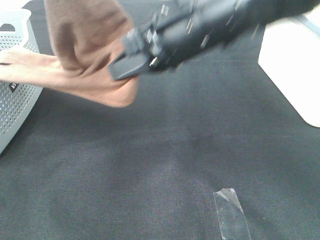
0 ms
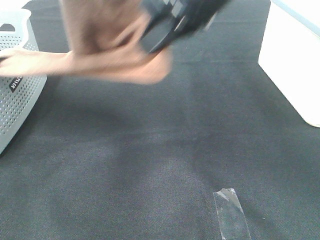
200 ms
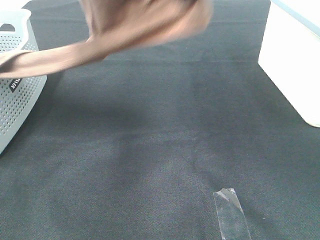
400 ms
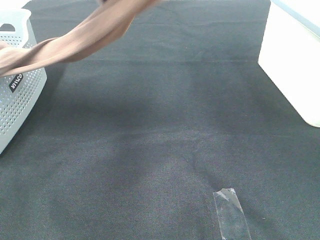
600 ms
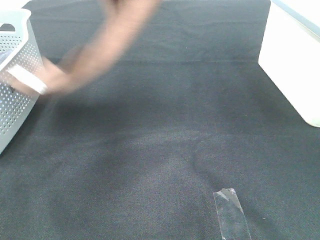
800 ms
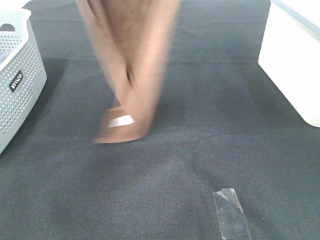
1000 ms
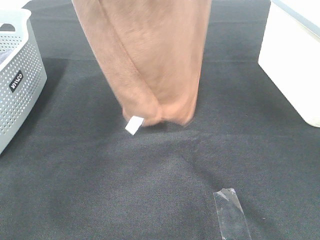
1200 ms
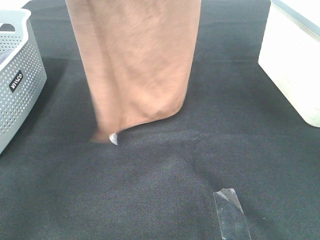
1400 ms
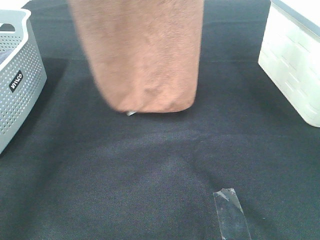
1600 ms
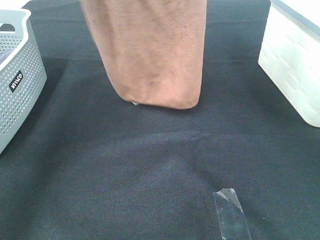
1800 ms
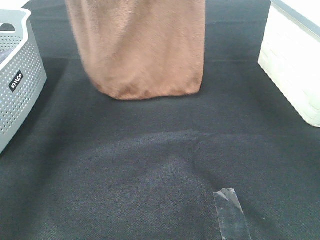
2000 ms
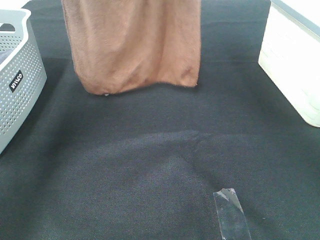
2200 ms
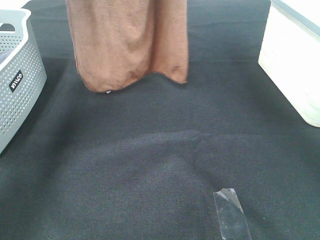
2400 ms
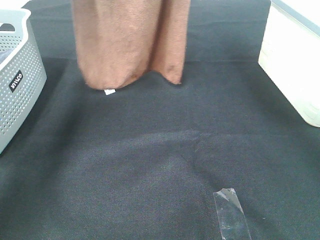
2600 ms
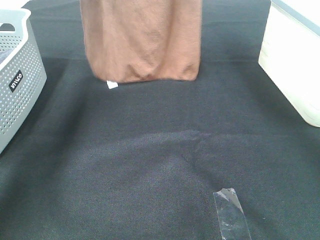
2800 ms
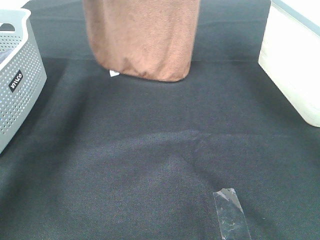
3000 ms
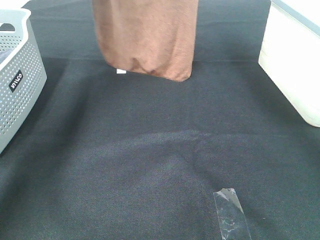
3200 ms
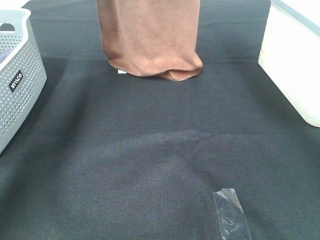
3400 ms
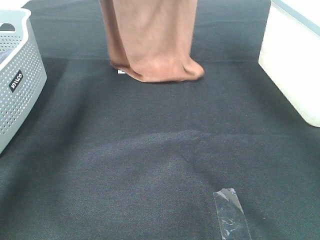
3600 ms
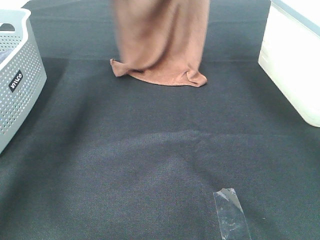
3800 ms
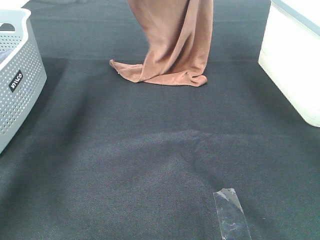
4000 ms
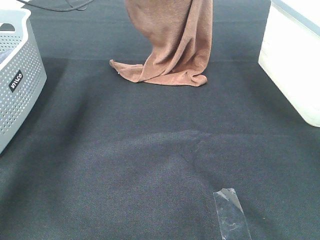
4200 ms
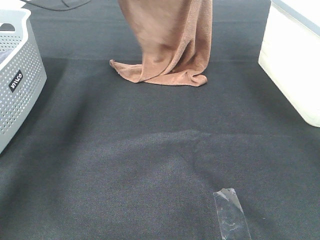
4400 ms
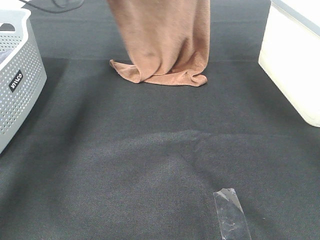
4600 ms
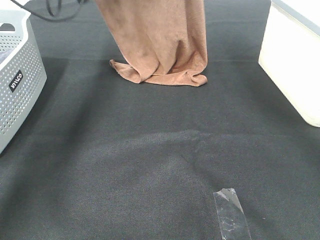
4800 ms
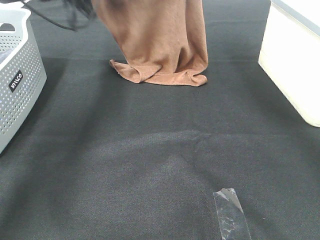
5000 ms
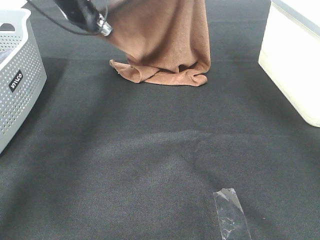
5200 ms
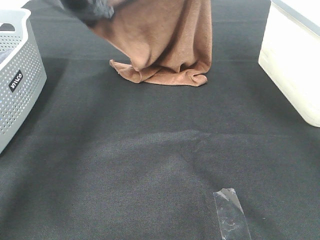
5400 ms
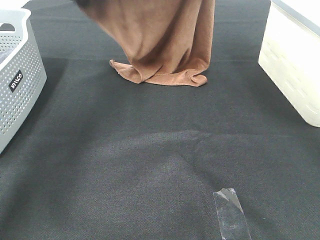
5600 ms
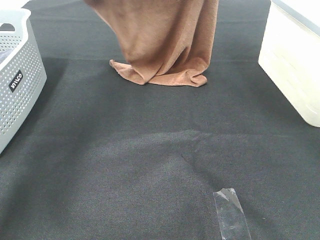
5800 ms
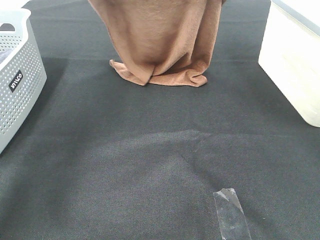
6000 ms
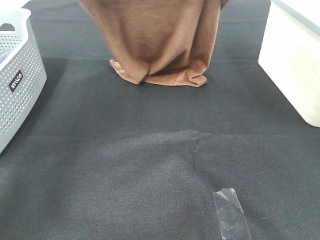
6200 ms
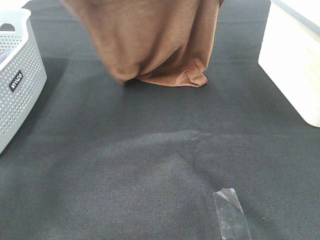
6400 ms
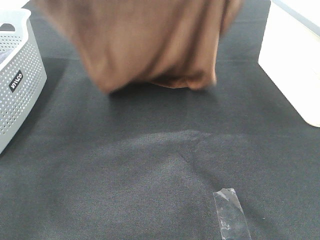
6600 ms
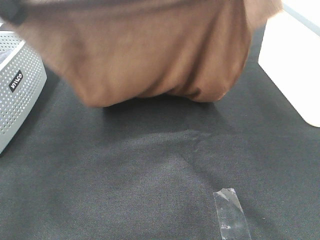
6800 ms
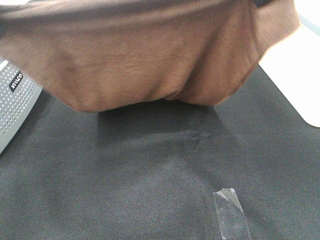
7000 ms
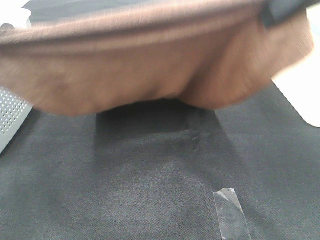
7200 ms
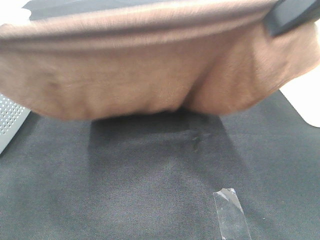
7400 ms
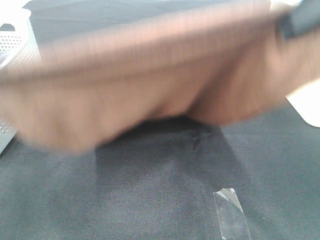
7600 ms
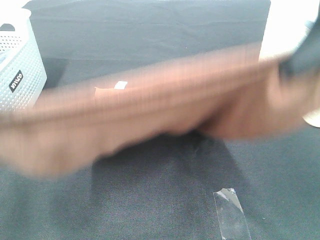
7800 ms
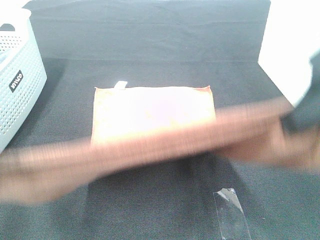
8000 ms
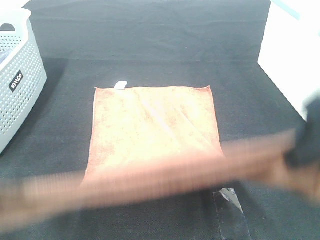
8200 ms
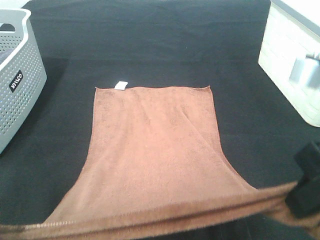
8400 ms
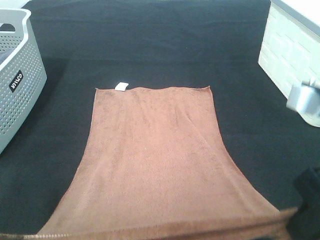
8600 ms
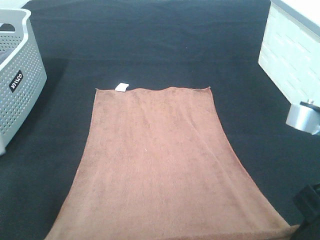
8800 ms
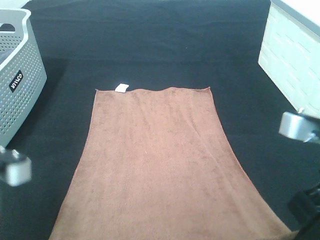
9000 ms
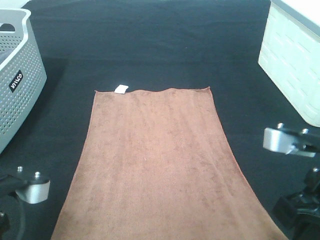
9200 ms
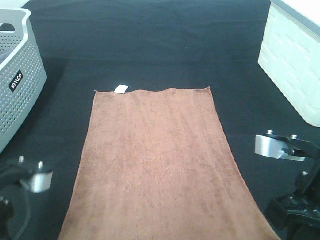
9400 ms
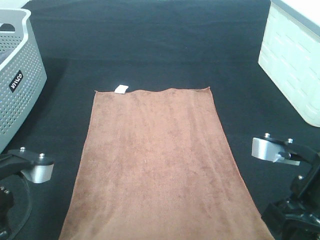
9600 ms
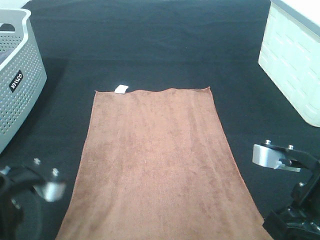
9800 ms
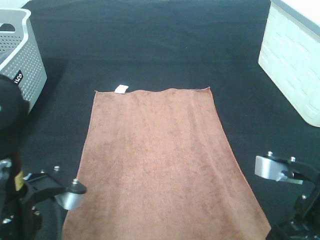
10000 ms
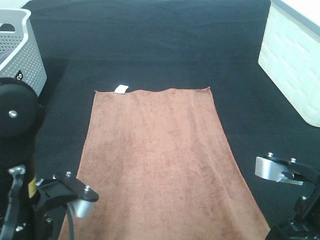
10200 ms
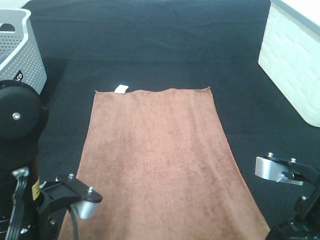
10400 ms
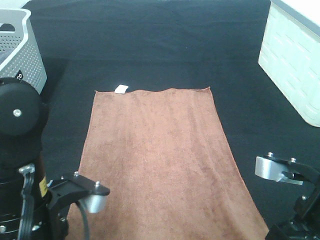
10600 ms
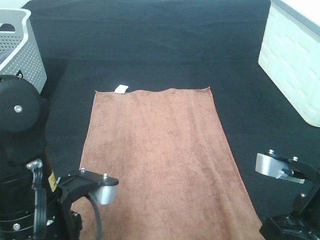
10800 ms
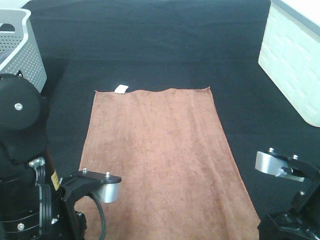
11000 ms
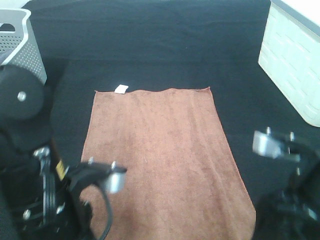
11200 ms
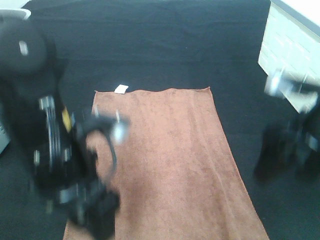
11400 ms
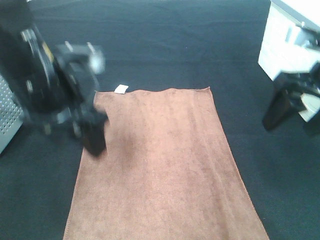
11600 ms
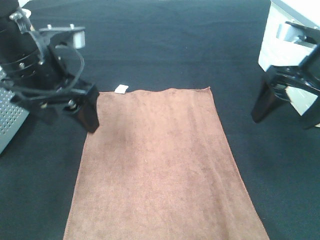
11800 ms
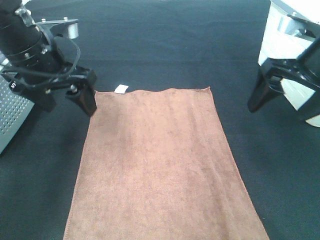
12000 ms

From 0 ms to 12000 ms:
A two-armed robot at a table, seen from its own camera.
Task of the whole recording: Remove the towel and place it.
Step, from 0 ms to 6200 ms: Left hand: spread the brown towel flat on the table.
Step, from 0 ms to 6200 ms: Right hand: spread the brown towel flat on the table.
From 0 ms to 1600 ms: The right gripper is displaced upward by some 25 cm; the left gripper goes about 10 cm forward and to the left.
From 1600 ms to 3000 ms: The right gripper travels forward and downward by some 15 cm. Meanwhile the left gripper is displaced forward by approximately 15 cm.
From 3000 ms to 4400 ms: The right gripper goes roughly 5 cm downward, while the left gripper is displaced downward by roughly 15 cm.
From 4400 ms to 6000 ms: The right gripper heads backward, covering approximately 5 cm, while the left gripper is displaced upward and backward by roughly 15 cm.
From 6000 ms to 7600 ms: Both grippers move backward, roughly 25 cm.
From 7600 ms to 9000 ms: Both grippers travel together downward, some 15 cm.
From 9000 ms to 10400 ms: The left gripper travels to the right by some 5 cm, while the right gripper goes some 5 cm downward.
From 10400 ms to 12000 ms: The right gripper travels forward and upward by approximately 20 cm, and opens up, while the left gripper goes approximately 20 cm forward, and opens up.

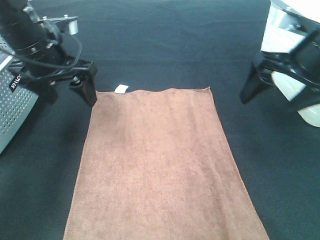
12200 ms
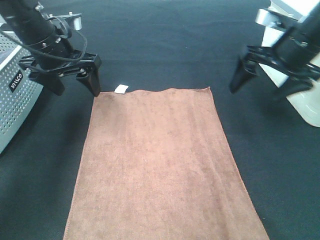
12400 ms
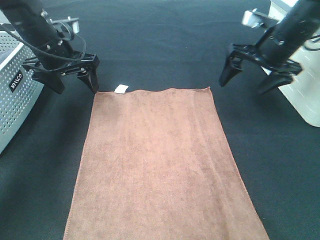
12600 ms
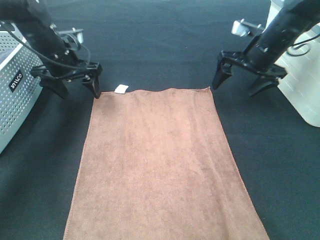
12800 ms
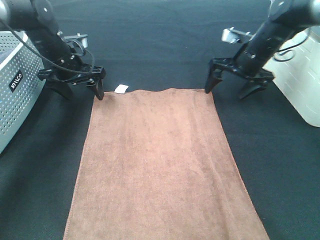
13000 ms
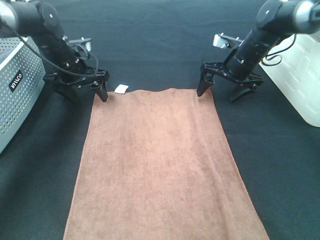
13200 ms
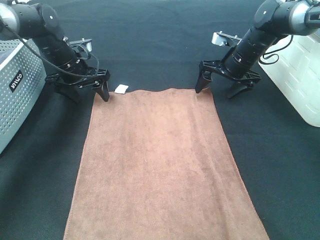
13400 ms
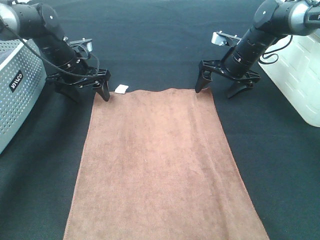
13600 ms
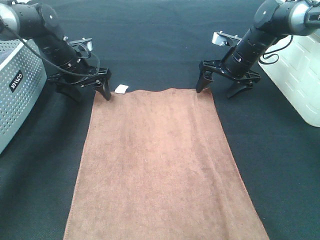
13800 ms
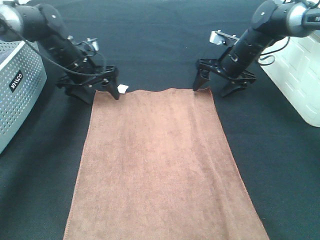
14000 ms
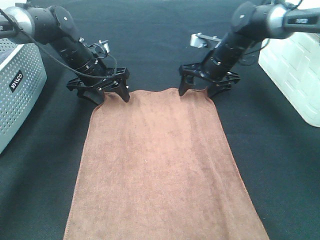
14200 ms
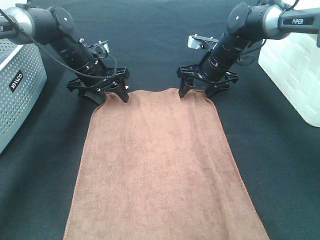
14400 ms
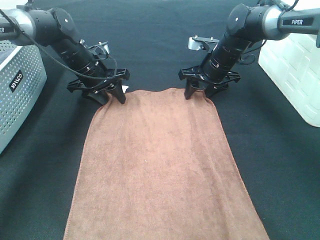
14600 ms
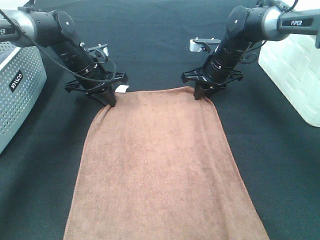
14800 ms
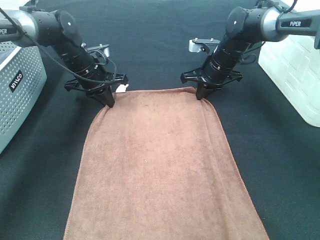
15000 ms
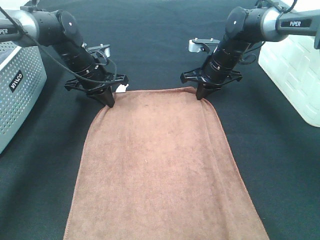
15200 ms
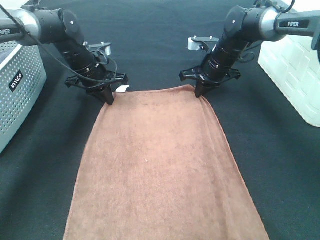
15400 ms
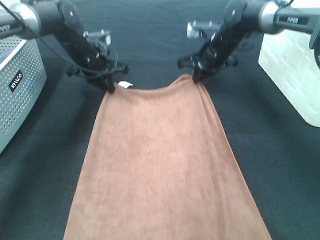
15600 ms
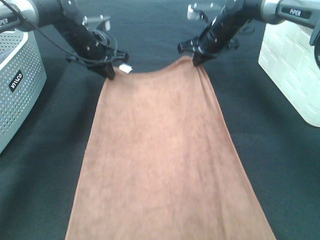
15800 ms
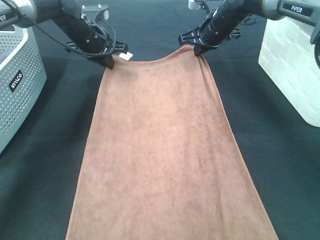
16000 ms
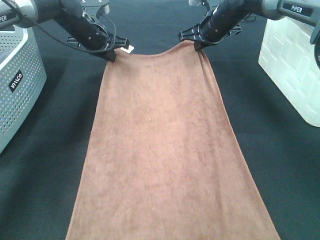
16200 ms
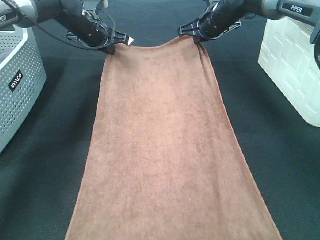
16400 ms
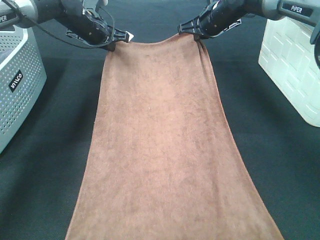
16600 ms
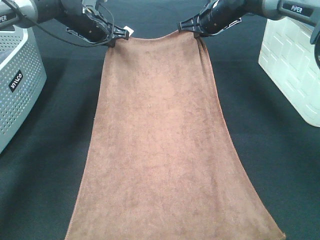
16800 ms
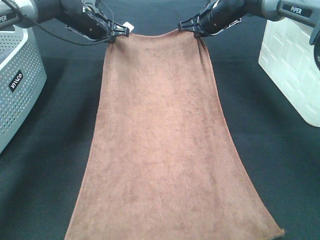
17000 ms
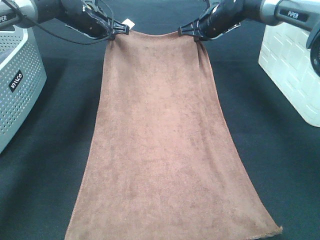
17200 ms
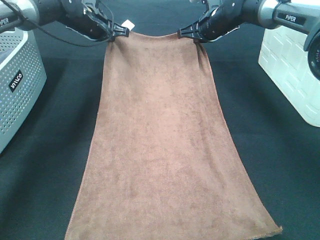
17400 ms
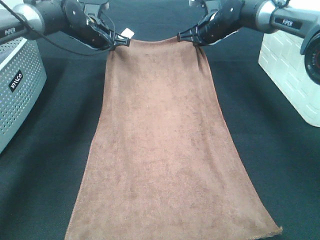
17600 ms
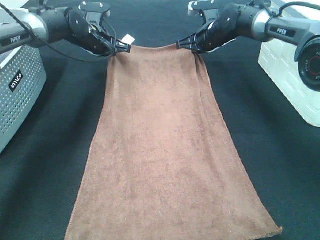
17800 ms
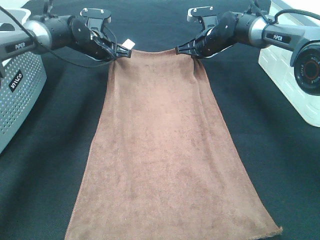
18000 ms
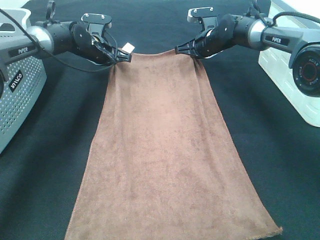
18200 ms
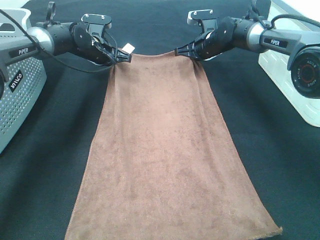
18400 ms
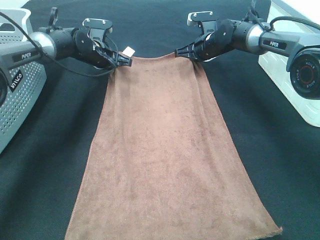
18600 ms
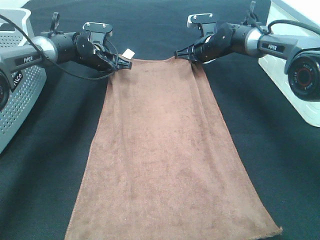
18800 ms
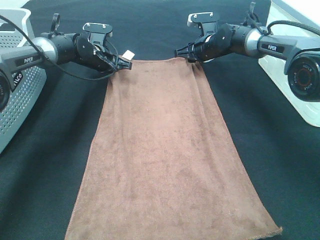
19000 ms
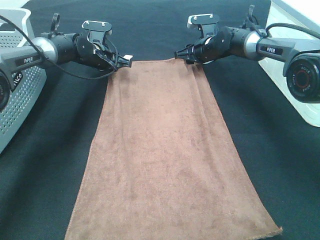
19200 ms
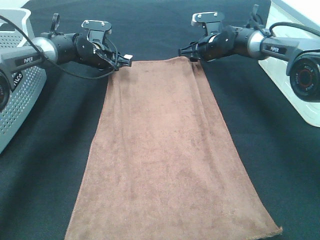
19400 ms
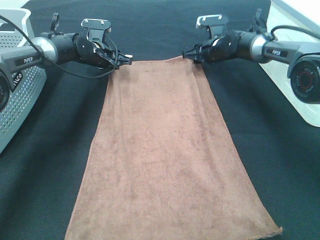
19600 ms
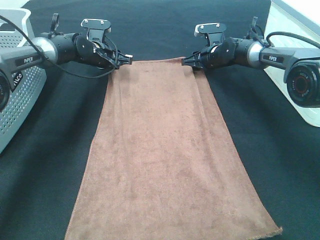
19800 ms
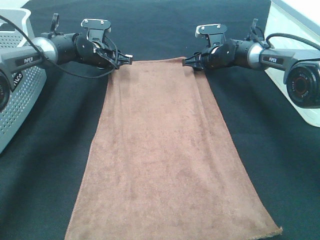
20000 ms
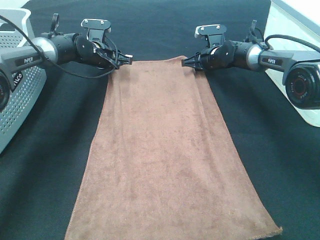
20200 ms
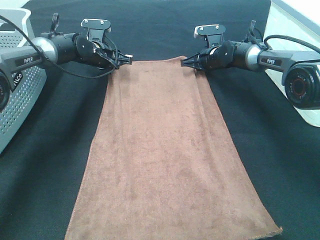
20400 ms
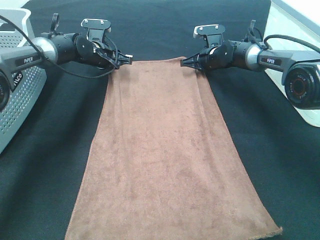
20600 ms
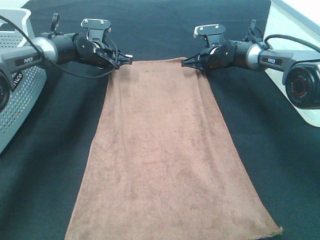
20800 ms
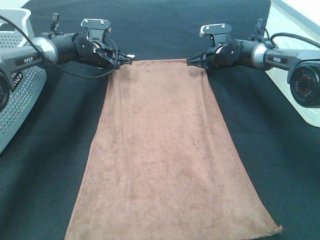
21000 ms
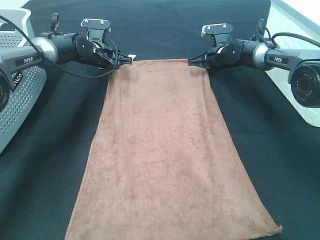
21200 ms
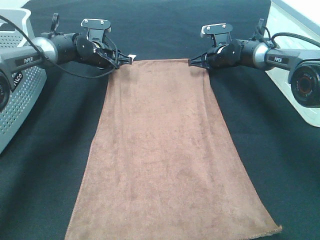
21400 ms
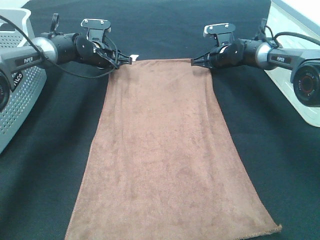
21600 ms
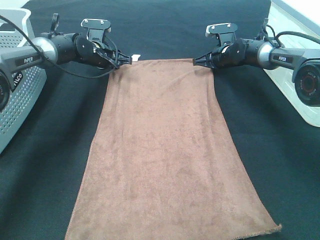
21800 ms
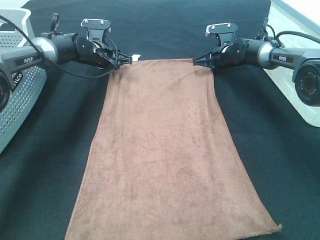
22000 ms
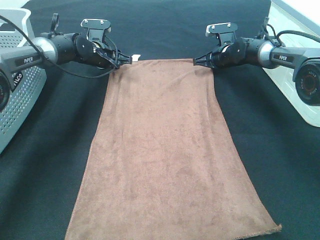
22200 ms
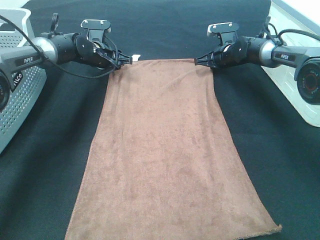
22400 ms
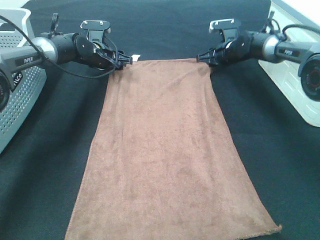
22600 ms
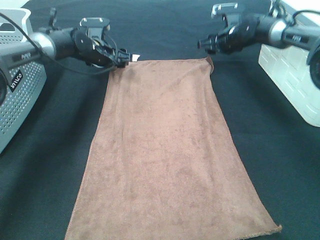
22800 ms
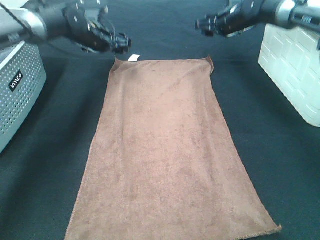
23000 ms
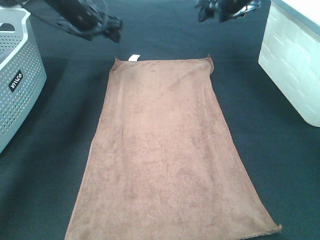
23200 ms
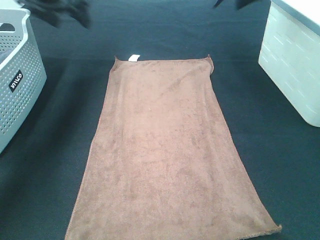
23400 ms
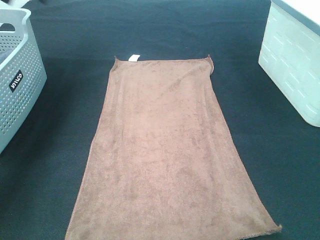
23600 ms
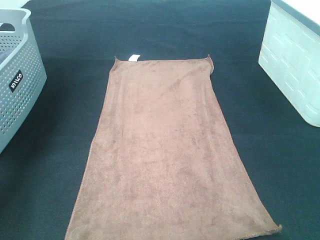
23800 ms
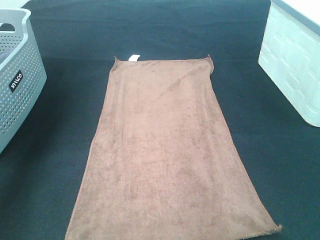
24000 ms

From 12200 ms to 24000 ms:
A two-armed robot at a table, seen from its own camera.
Task of the whole recording: Remove the towel and place it.
Step, from 12200 ms to 15800 ms: Left hand:adjust the brown towel.
Step, from 12200 ms to 15800 ms: Right hand:adjust the brown towel.
From 12200 ms to 13600 ms: The grippers both shift forward and downward by about 20 cm.
From 13600 ms to 15200 ms: The right gripper closes its fingers. The left gripper closes.
From 15200 ms to 16600 ms: Both grippers travel together upward and forward, some 10 cm.
From 16600 ms to 18200 ms: Both grippers travel together downward, some 5 cm.
From 18200 ms to 19600 ms: The left gripper opens its fingers, while the right gripper opens.
From 19600 ms to 21000 ms: The right gripper closes up.
From 21000 ms to 22600 ms: The right gripper opens.
From 22600 ms to 24000 ms: The right gripper goes about 40 cm upward and backward; the left gripper moves upward, backward and to the left, some 40 cm.
